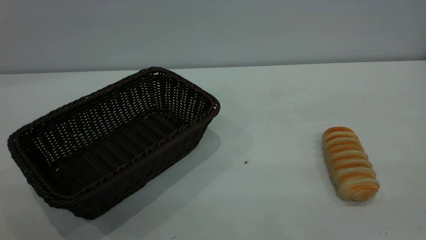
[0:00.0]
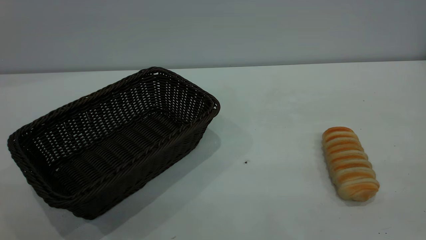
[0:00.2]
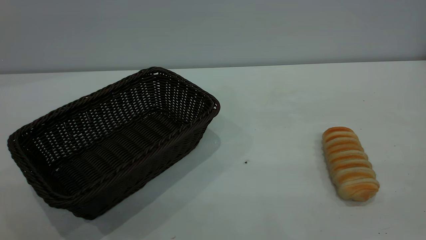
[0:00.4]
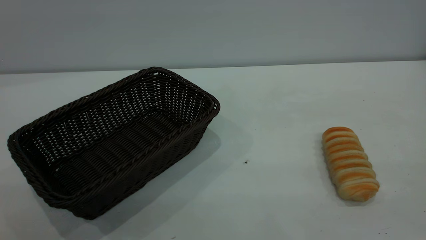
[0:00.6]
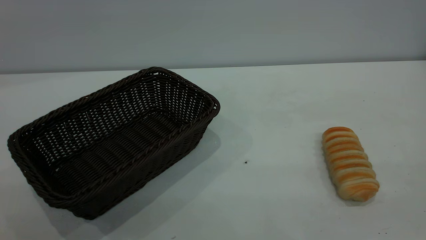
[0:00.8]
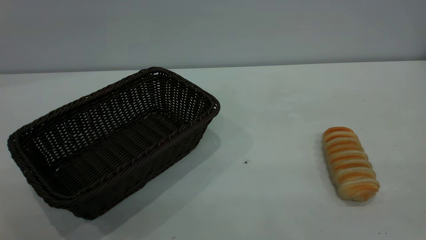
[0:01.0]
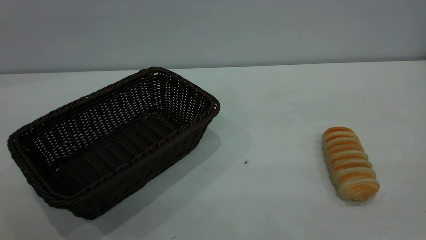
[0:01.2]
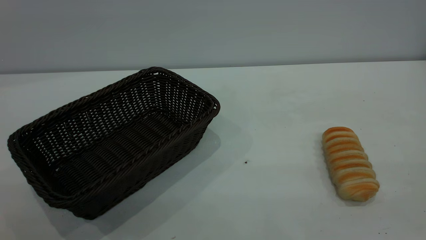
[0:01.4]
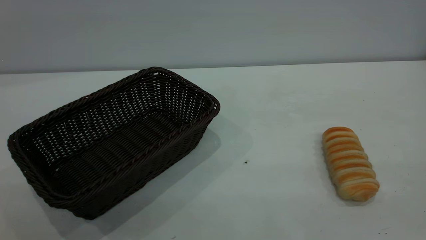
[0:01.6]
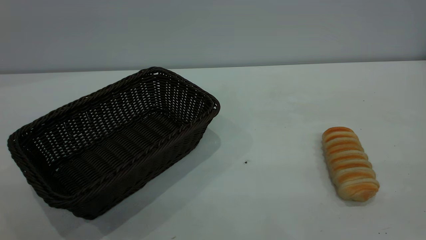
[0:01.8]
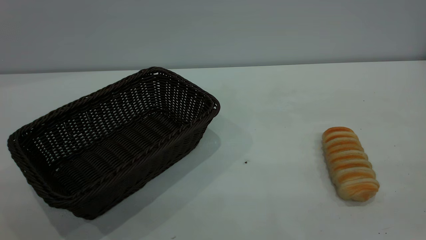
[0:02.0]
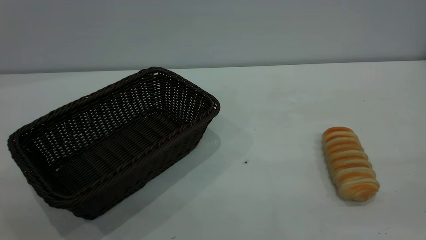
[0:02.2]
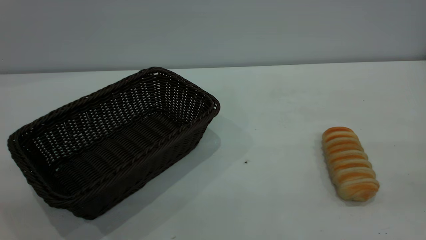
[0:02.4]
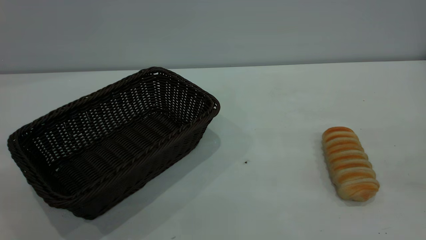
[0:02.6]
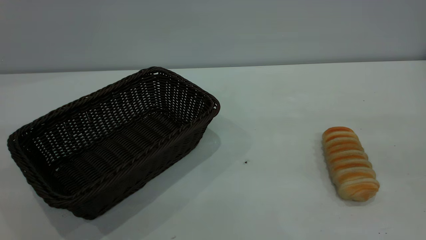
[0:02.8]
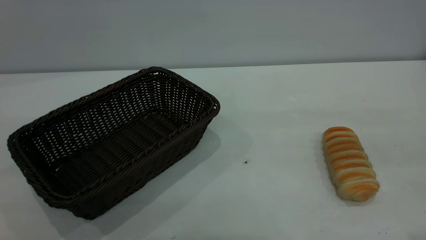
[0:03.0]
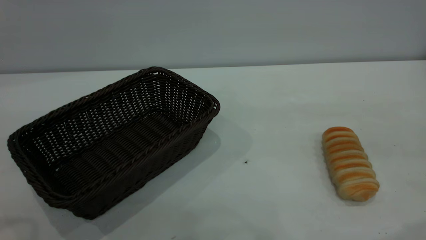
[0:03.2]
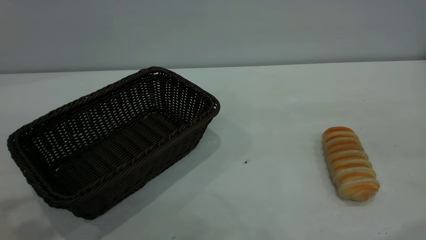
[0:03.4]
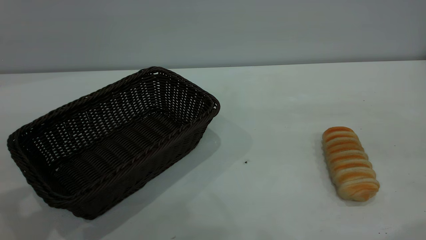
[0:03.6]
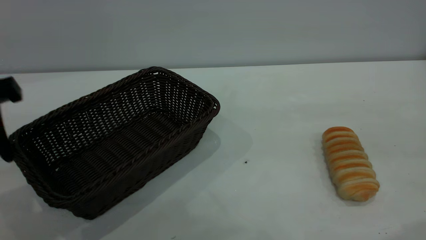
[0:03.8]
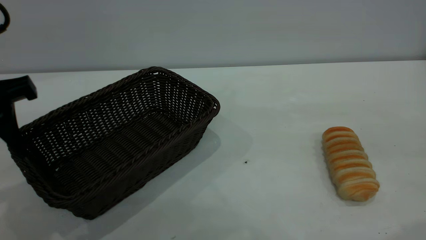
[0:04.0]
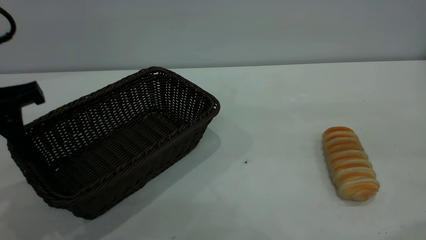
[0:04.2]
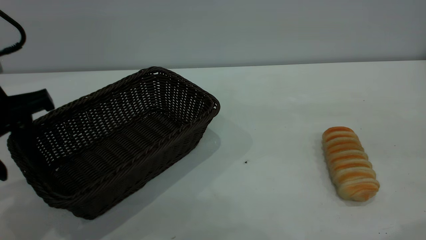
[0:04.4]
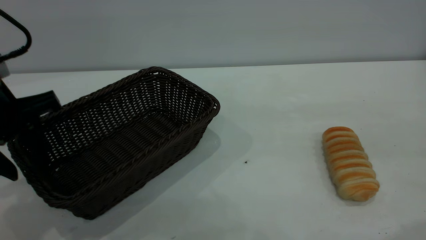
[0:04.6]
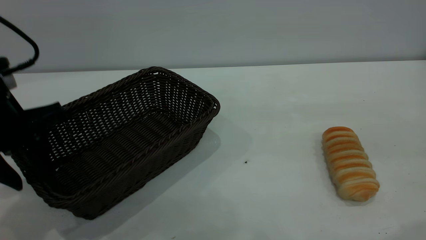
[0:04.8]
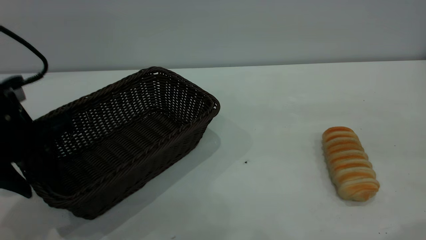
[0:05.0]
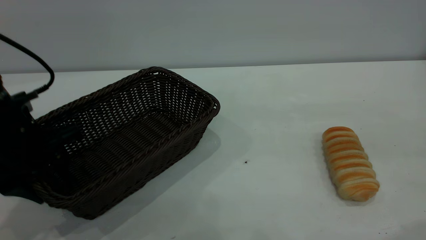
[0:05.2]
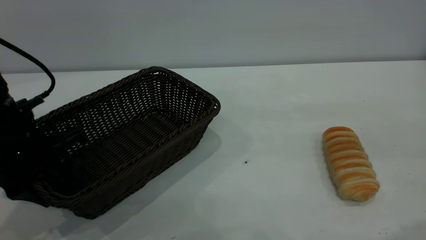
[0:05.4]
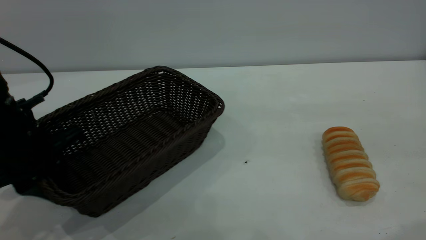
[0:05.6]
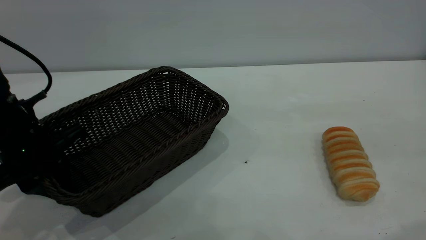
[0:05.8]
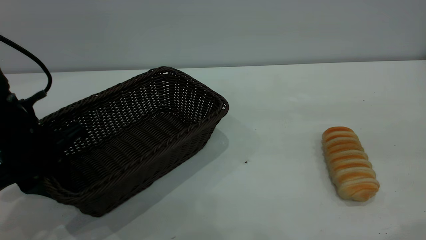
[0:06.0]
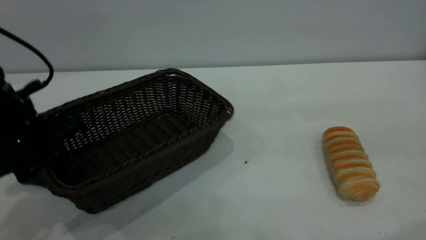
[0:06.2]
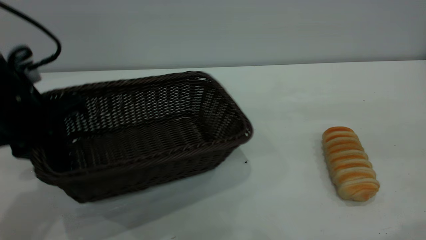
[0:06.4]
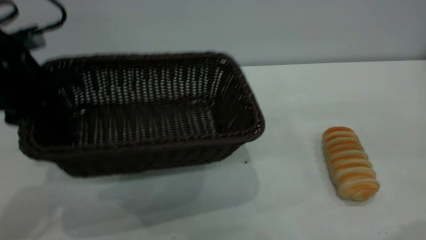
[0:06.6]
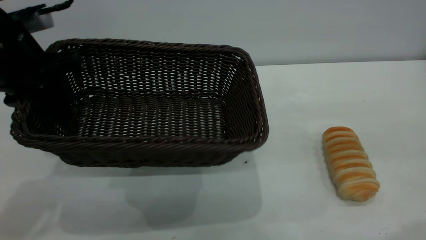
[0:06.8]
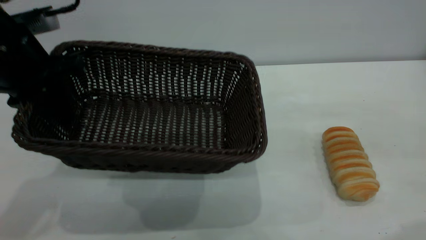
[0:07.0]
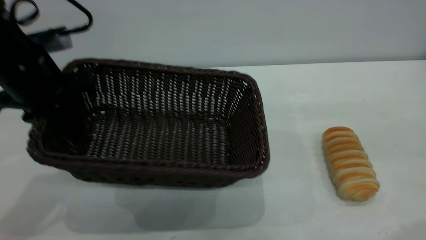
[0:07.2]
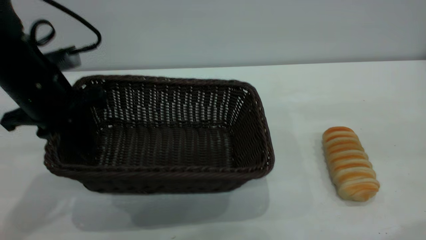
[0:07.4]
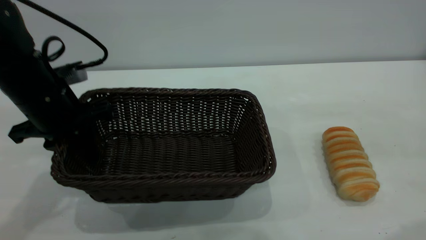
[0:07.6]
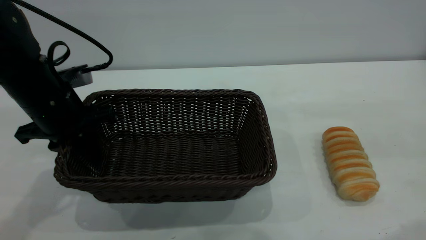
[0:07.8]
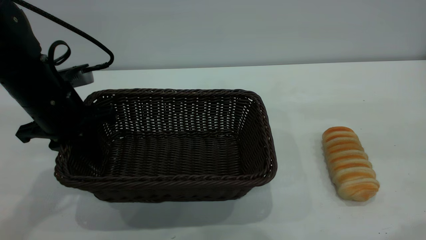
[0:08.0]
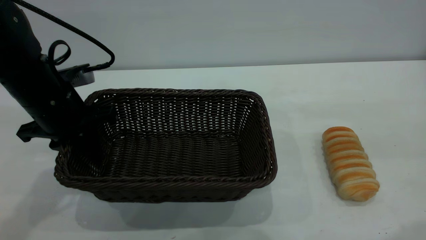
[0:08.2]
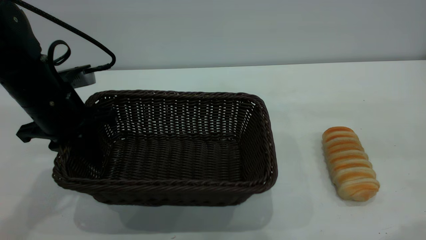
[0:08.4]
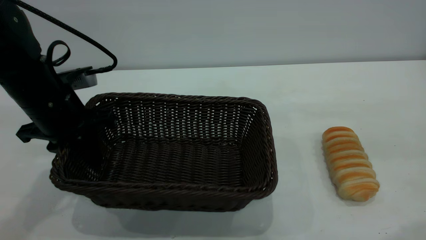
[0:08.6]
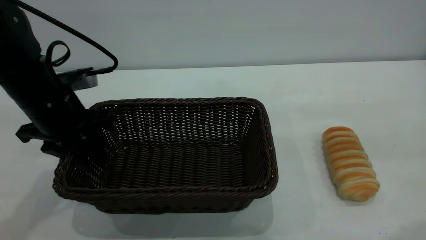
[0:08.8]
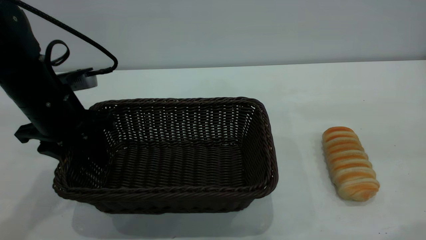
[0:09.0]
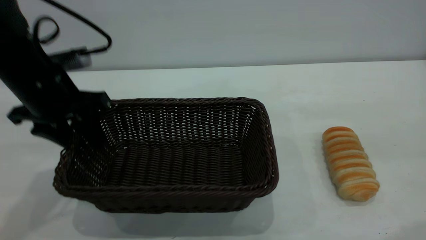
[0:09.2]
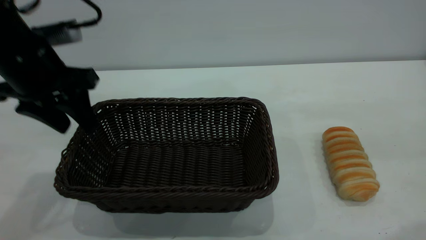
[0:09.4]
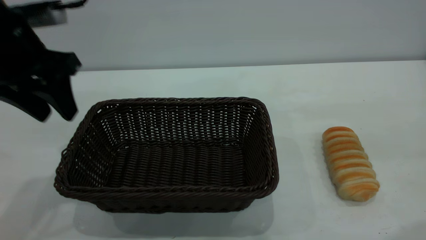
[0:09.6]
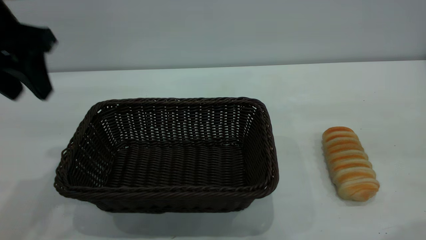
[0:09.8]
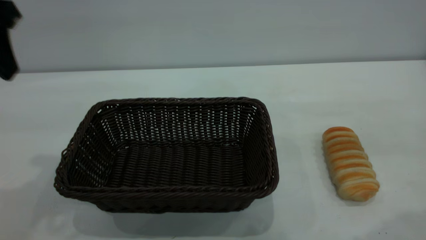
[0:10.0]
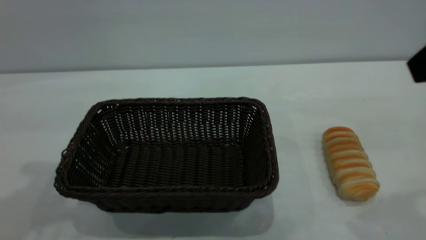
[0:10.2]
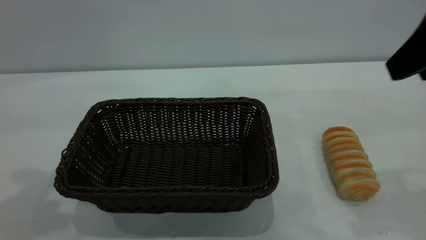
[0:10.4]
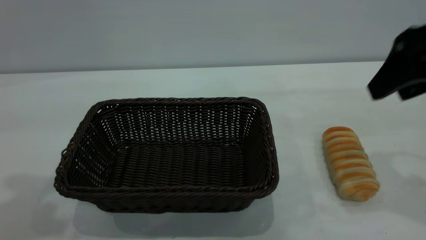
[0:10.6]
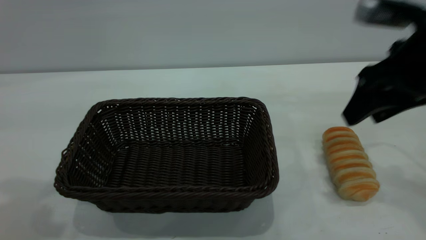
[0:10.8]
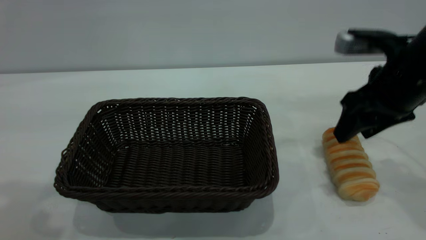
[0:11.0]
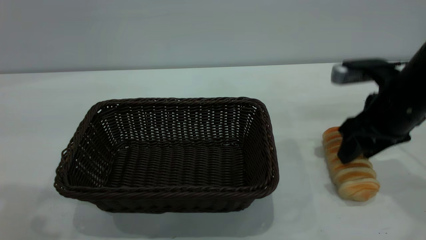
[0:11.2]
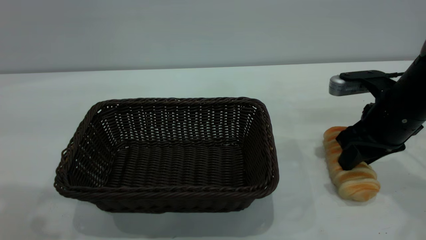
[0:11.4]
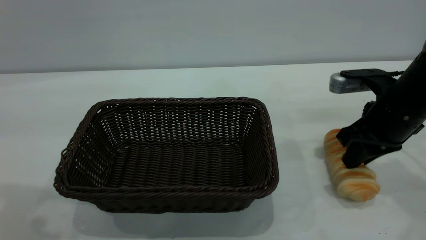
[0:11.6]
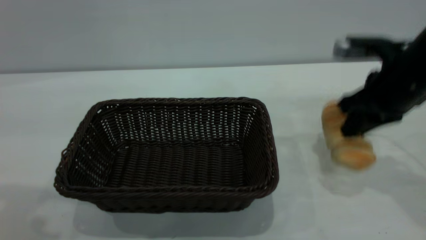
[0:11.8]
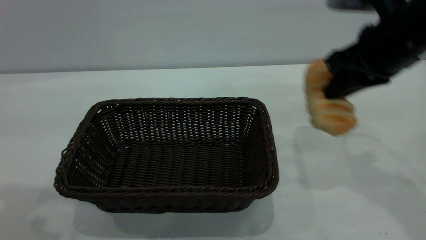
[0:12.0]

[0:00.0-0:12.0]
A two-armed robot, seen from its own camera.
Task of the whole recording: One hand grasps the black basket and places it in the middle of the table, while the other hand picks up the long bread and puts it into the black basket.
Step, 0:00.0 to 0:09.6: Move the basket to the center of view.
0:00.0 to 0:01.6: Both grippers stay put.
0:03.0 to 0:04.4: The left gripper shifts roughly 20 cm downward and forward.
0:04.4 to 0:06.0: The left gripper shifts about 5 cm downward, and closes its fingers.
0:06.0 to 0:07.6: The left gripper heads forward, covering approximately 5 cm, and goes upward and returns, some 10 cm each way.
0:07.6 to 0:09.0: The left gripper opens its fingers.
0:09.0 to 0:10.4: The right gripper shifts roughly 10 cm forward and downward. The left gripper travels upward and backward by roughly 25 cm.
0:10.4 to 0:12.0: The right gripper moves forward and to the left, approximately 10 cm, travels downward and back again, roughly 15 cm each way, and closes.

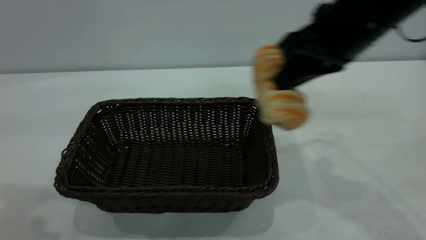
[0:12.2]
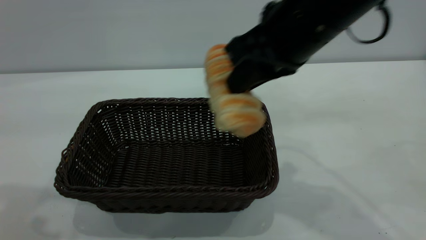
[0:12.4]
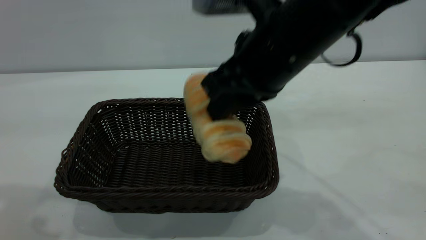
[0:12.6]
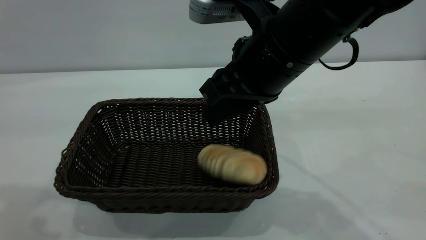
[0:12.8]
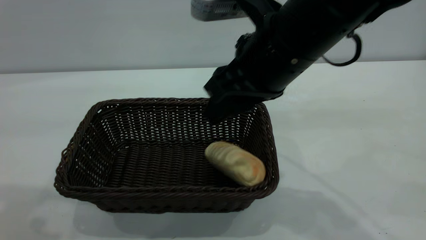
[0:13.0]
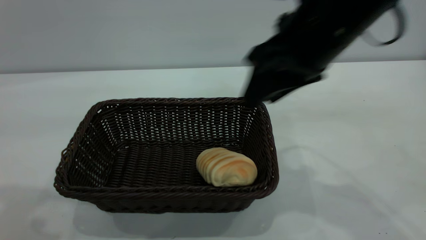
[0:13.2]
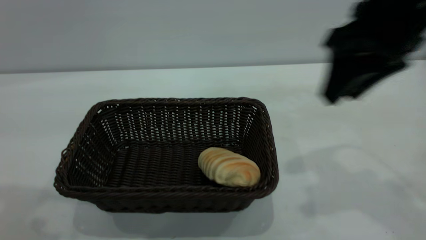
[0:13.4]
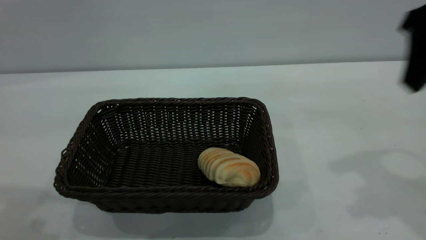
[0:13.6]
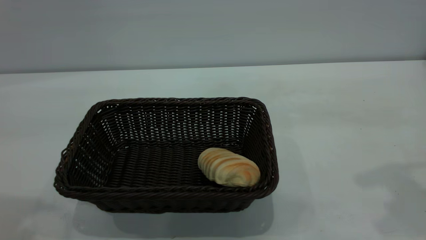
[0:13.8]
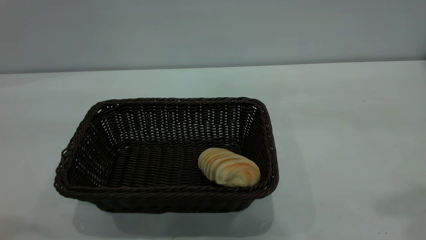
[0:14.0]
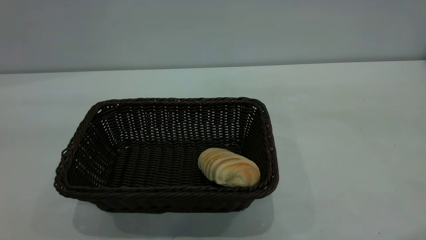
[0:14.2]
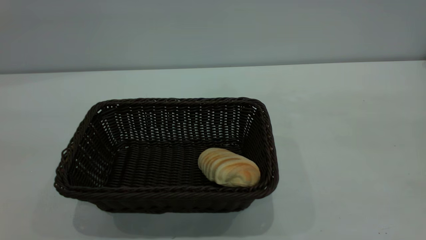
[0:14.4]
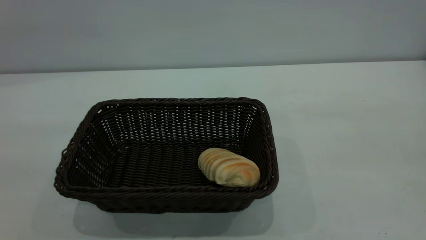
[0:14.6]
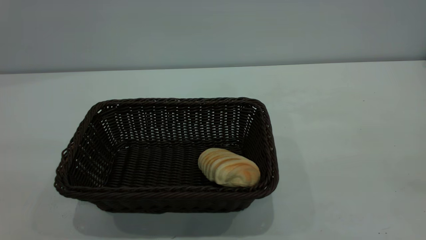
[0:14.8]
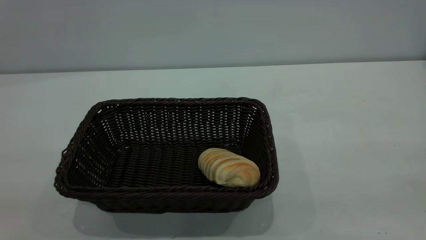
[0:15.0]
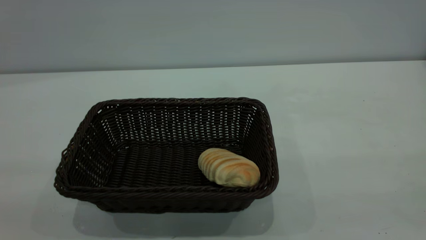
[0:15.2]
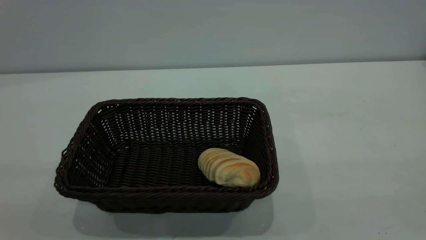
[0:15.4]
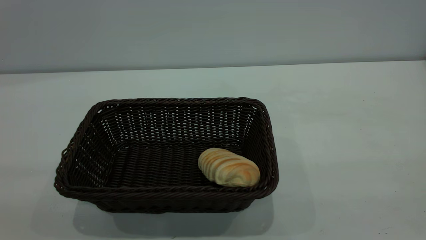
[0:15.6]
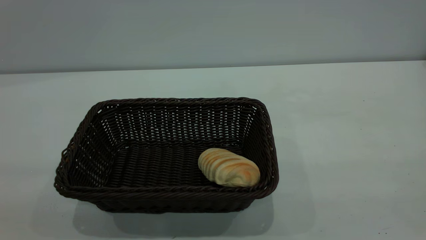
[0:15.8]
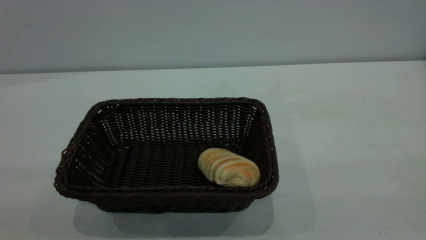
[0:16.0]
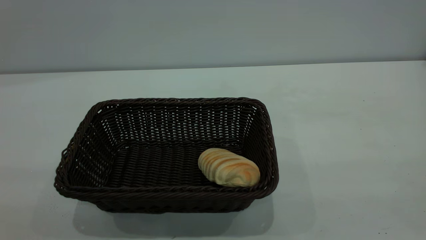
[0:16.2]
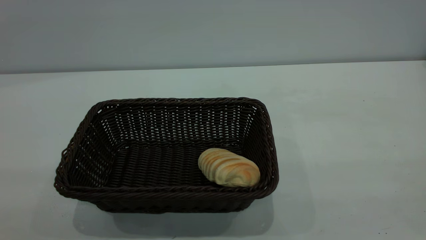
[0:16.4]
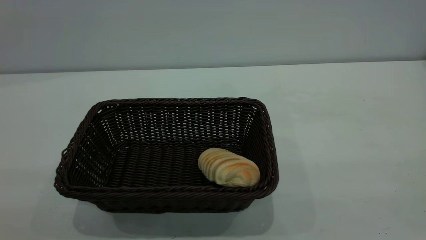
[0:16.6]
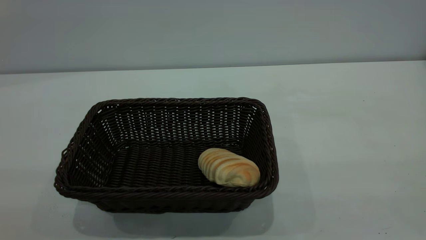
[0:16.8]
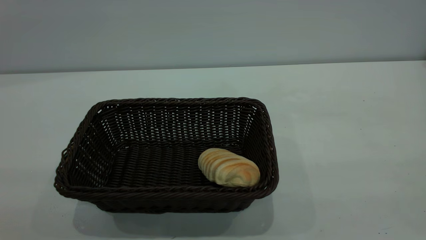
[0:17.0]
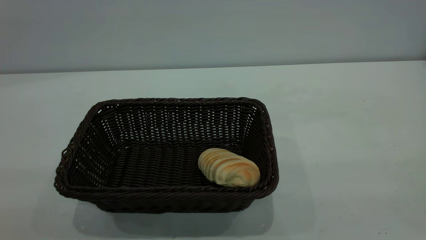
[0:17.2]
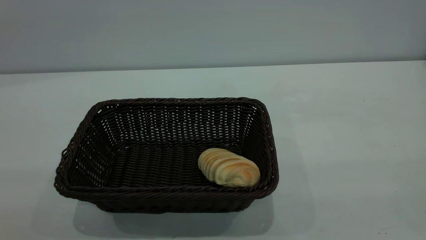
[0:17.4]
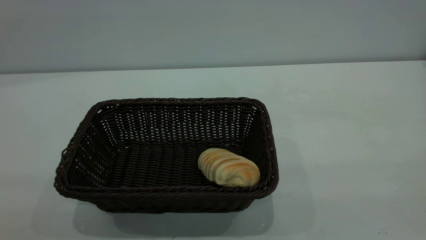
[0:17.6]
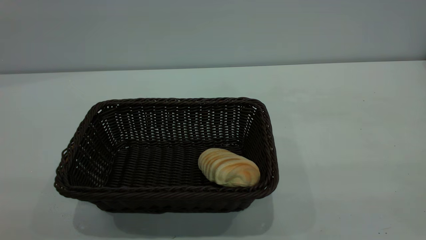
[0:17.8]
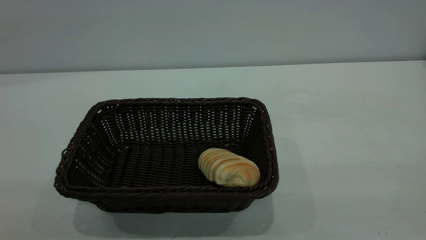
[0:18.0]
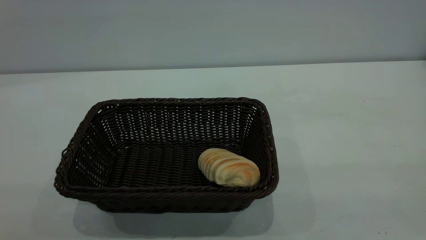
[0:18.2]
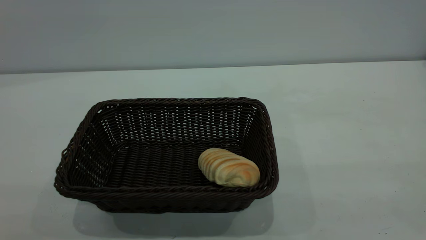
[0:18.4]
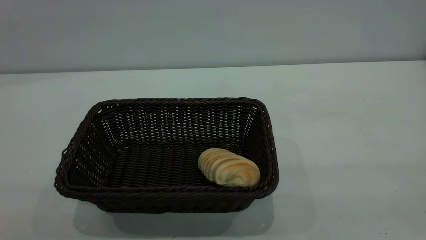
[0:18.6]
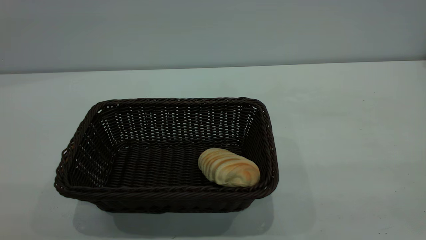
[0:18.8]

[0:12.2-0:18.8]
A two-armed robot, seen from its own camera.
Task of the whole recording: One hand grasps the black basket and places it in the middle of the table, while the other hand picks up the long bread and puts it into the black basket.
Step, 0:12.2 to 0:13.2: place the bread into the basket.
0:12.2 to 0:13.8: The right gripper heads to the right, upward and backward, covering some 20 cm, and opens its fingers.
